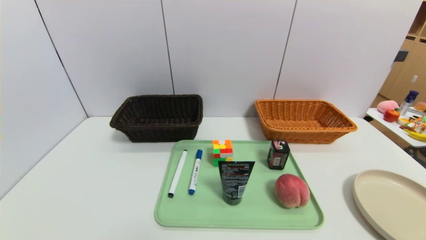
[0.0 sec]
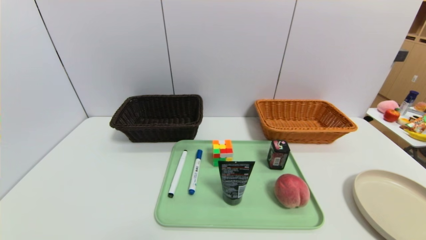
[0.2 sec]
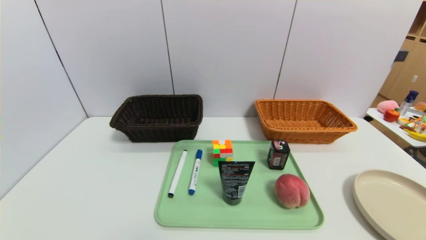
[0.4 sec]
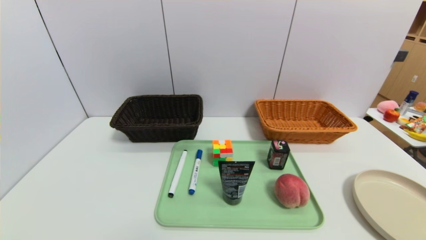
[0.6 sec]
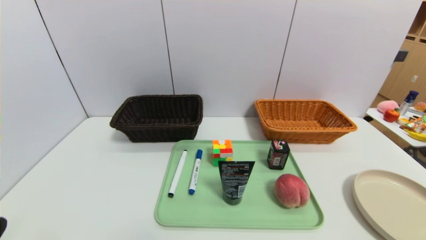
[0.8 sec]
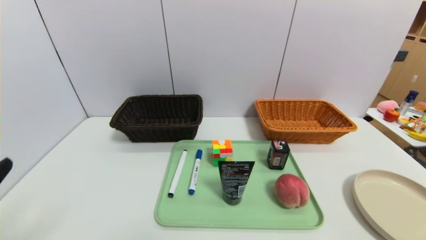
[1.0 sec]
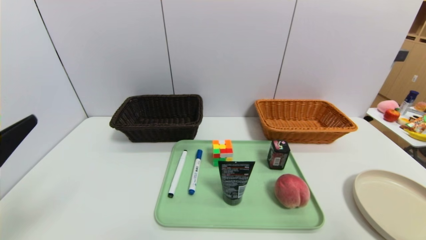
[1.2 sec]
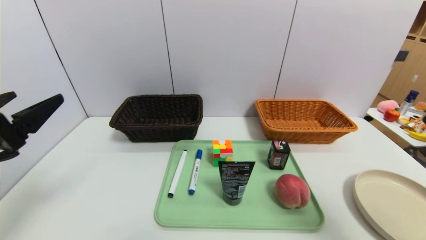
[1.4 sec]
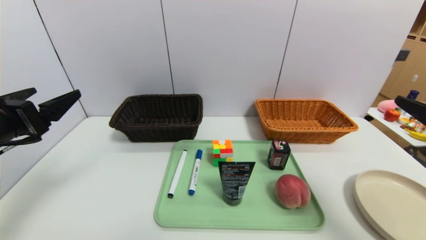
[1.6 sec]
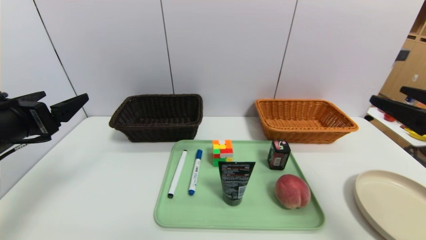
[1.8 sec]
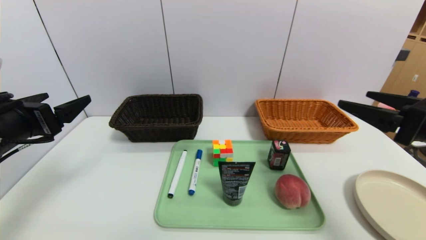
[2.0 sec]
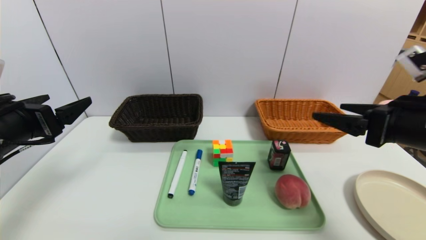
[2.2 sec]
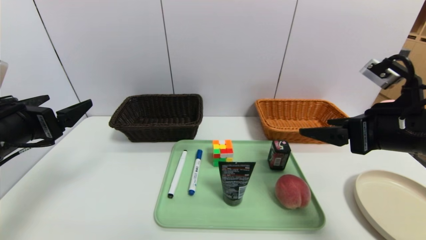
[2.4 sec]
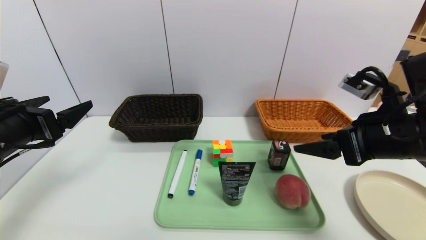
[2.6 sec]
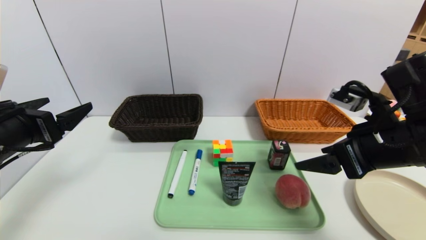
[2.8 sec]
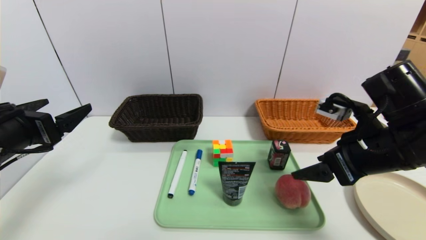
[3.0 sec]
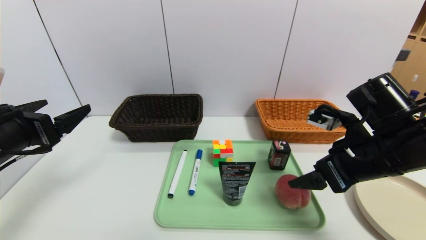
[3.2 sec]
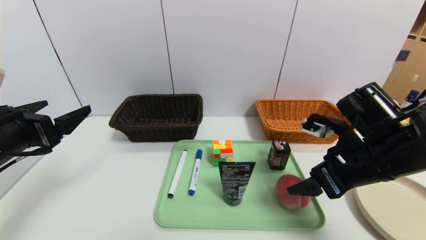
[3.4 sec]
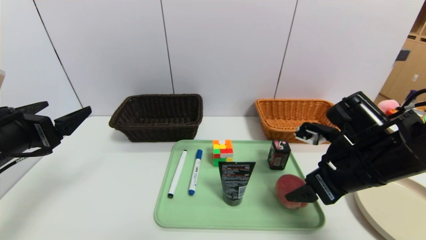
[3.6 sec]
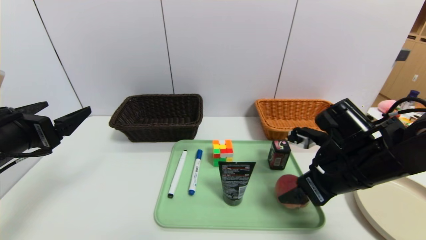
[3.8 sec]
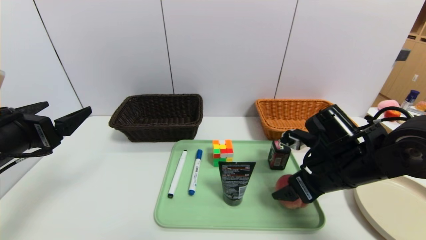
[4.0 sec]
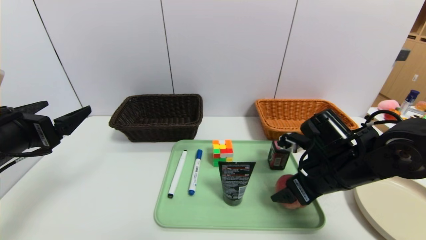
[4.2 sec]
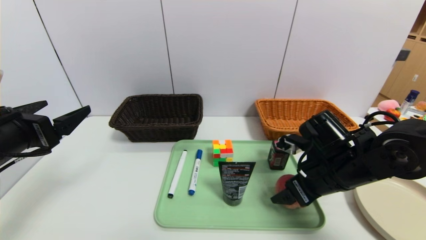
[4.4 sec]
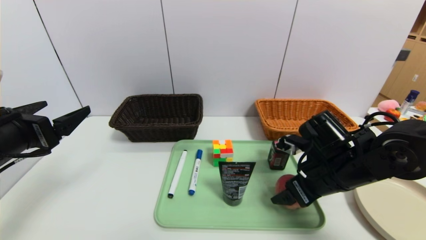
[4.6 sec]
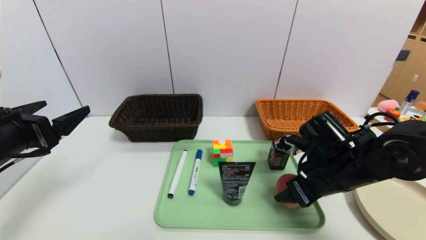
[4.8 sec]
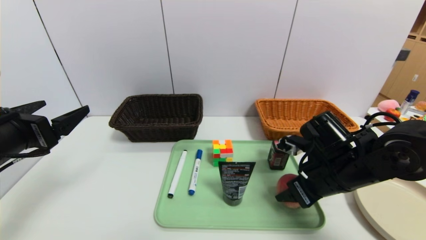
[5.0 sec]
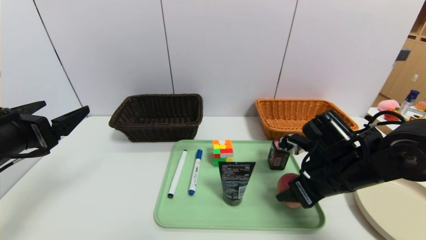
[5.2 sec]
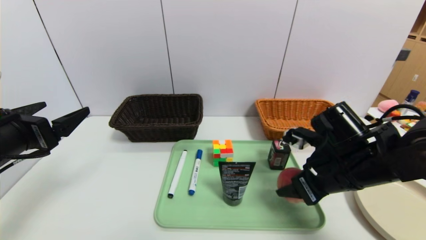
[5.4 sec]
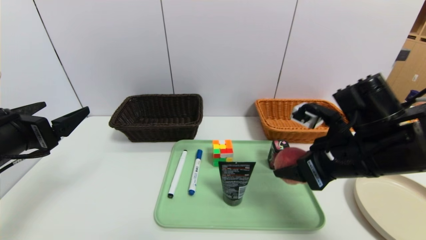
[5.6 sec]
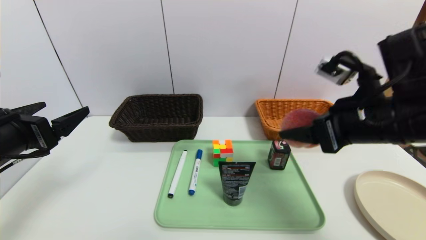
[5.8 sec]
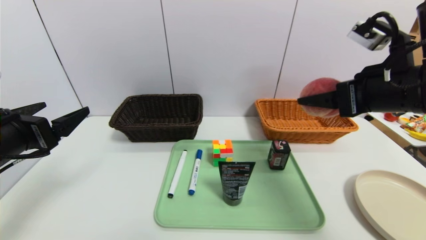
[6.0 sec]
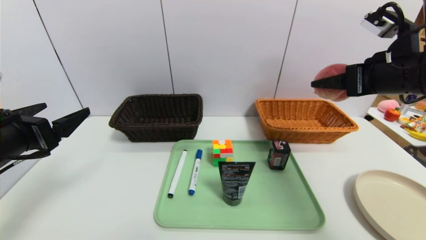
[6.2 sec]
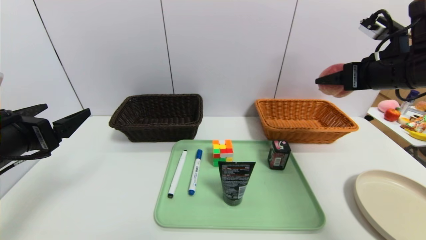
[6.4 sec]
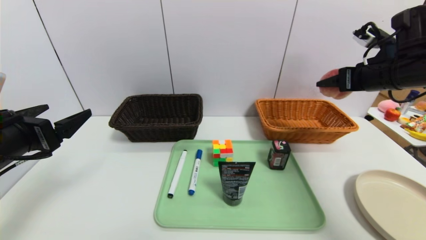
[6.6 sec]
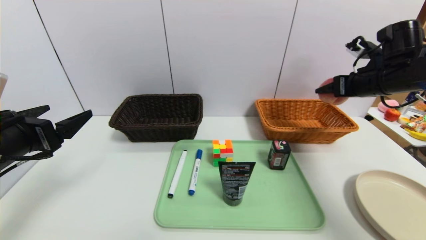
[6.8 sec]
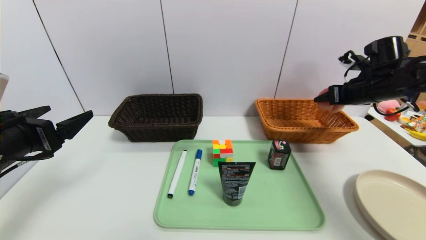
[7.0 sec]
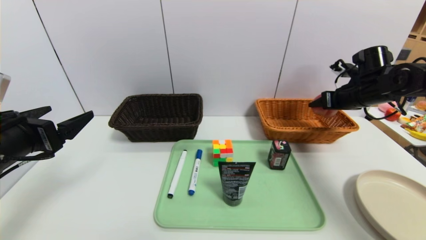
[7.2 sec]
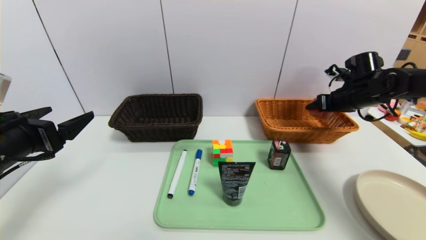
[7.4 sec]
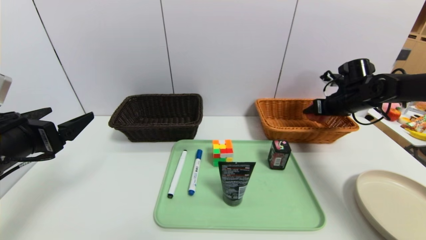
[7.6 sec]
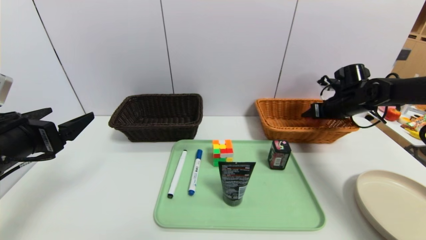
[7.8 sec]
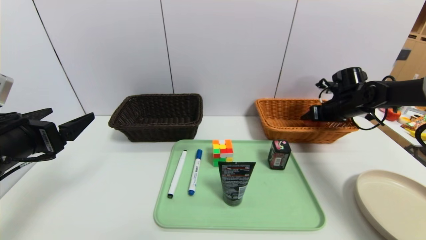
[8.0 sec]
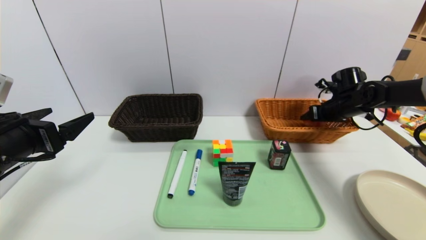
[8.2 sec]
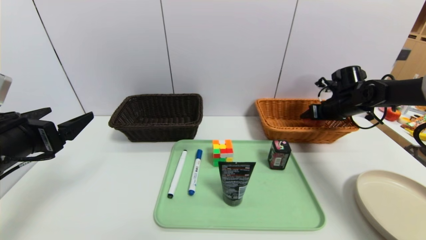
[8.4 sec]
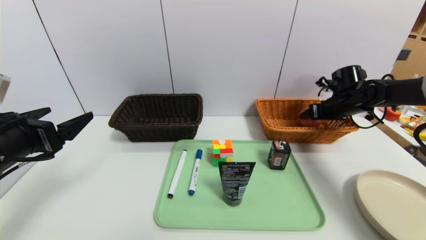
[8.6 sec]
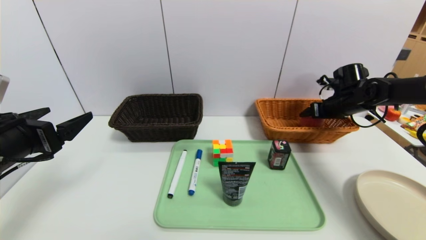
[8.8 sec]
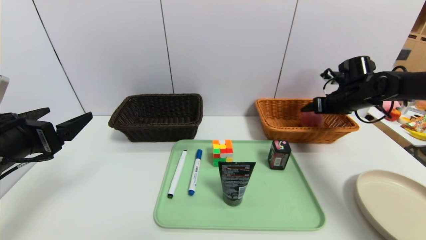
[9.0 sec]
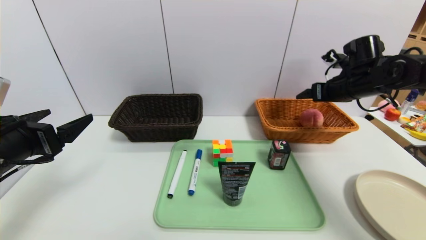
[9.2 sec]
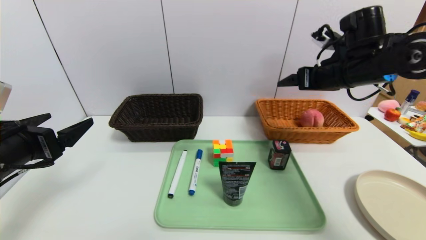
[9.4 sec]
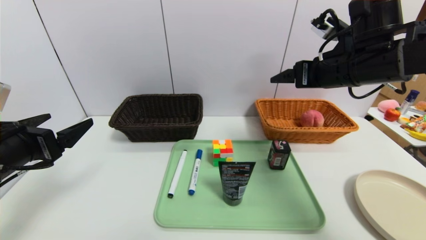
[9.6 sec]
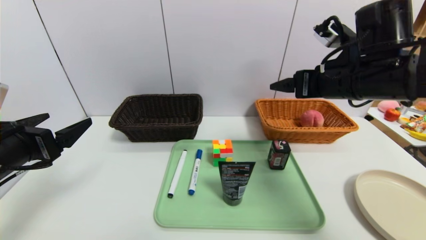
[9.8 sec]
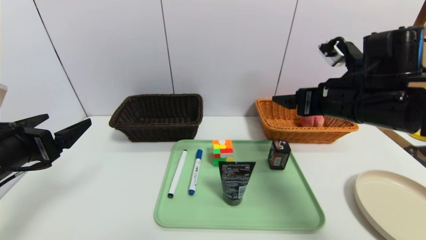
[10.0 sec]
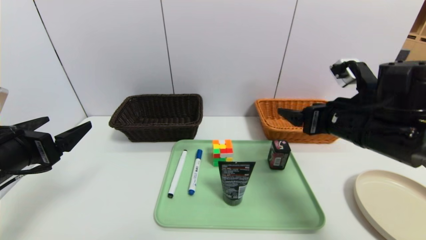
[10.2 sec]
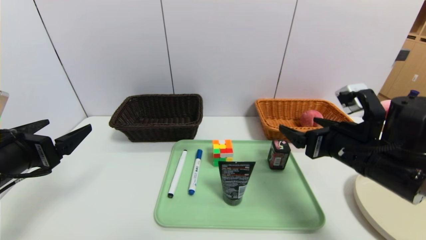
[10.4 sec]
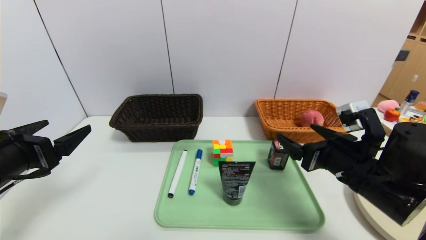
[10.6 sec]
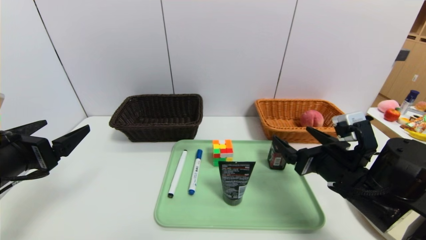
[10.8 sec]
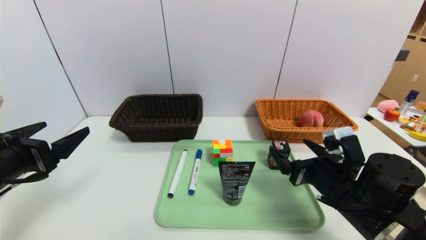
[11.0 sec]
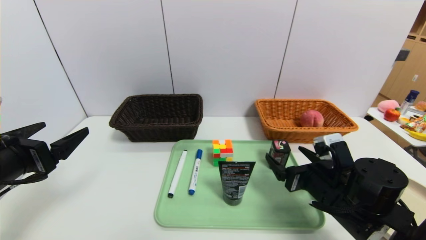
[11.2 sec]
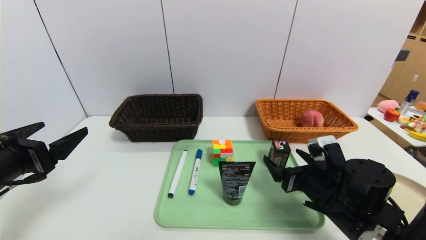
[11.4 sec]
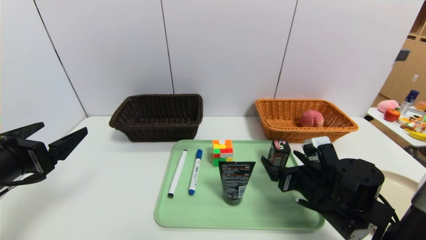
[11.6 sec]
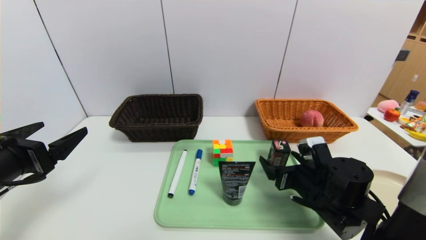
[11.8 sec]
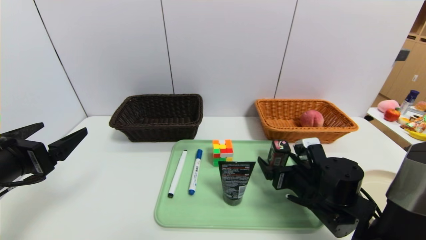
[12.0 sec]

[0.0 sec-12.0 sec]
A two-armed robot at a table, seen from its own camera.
Task of the whole recording: place the food in the right basket with the right gripper, and place the non food items in the left basket with the left gripper.
Step, 0.0 sec to 8.8 sec: Grasp the peach and put it in the right basket.
0.0 sec to 1.6 sec: The left gripper travels forward and upward by approximately 25 cm, while the right gripper is displaced upward and forward by about 25 cm.
1.6 sec to 3.0 sec: The right gripper travels to the left and forward by some 10 cm.
3.0 sec to 4.4 sec: The right gripper shifts about 10 cm downward.
4.4 sec to 6.0 sec: The right gripper goes about 15 cm upward, and closes up.
6.0 sec to 7.6 sec: The right gripper goes approximately 25 cm forward, downward and to the right.
7.6 sec to 9.0 sec: The grippers make only small movements.
9.0 sec to 10.4 sec: The right gripper goes roughly 25 cm backward and to the left.
10.4 sec to 12.0 sec: The right gripper travels downward by some 10 cm.

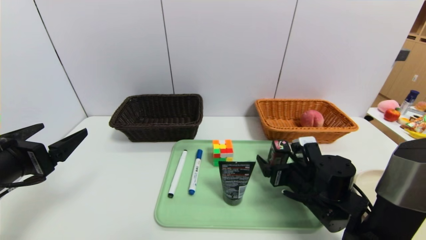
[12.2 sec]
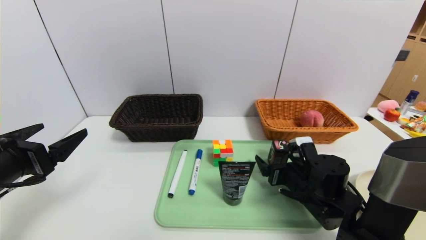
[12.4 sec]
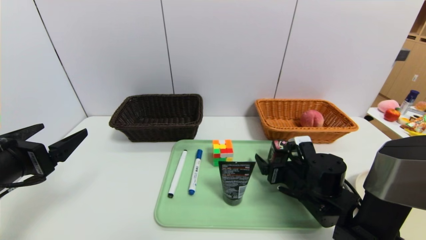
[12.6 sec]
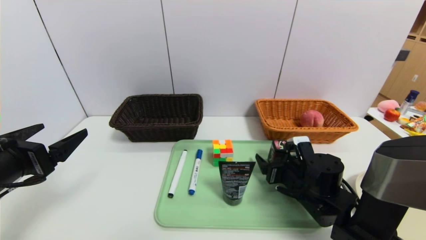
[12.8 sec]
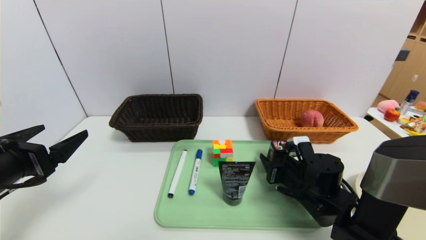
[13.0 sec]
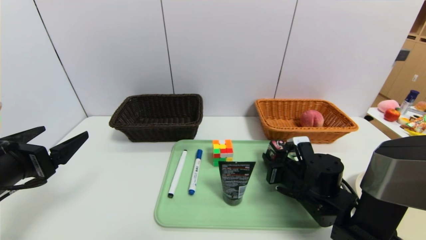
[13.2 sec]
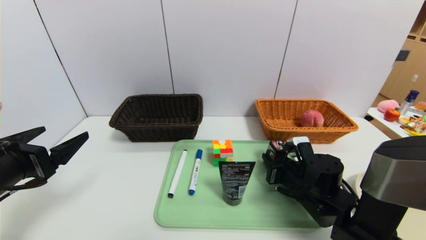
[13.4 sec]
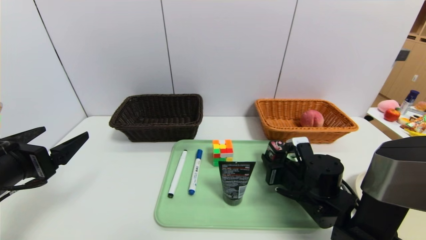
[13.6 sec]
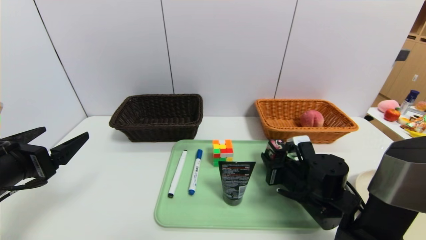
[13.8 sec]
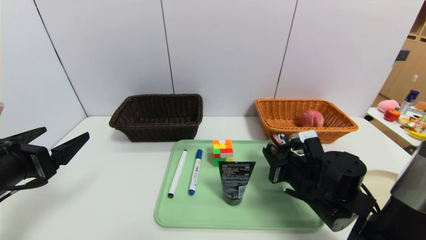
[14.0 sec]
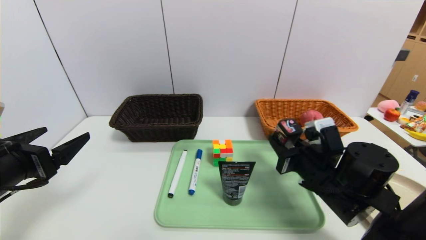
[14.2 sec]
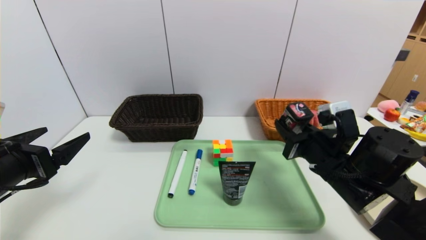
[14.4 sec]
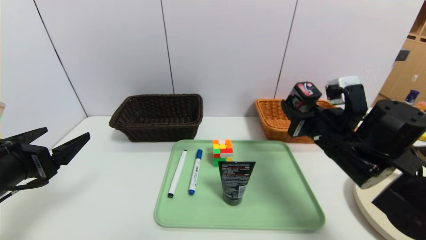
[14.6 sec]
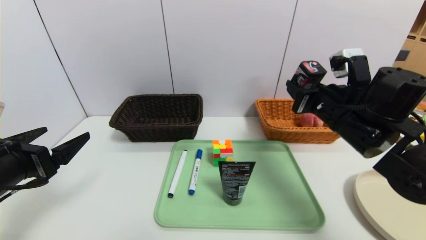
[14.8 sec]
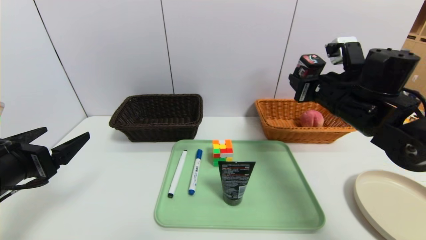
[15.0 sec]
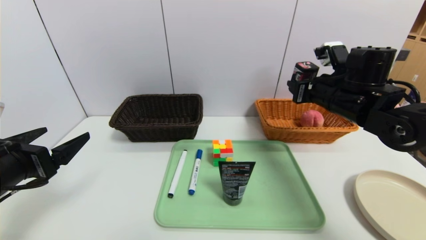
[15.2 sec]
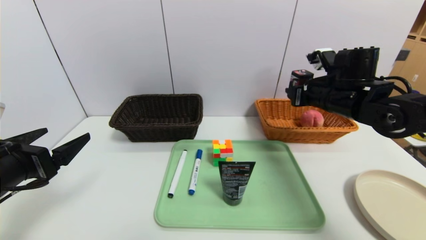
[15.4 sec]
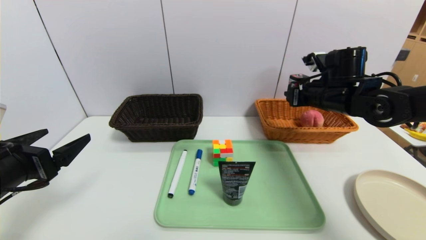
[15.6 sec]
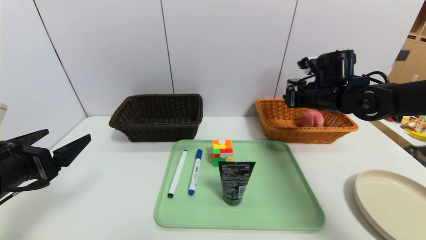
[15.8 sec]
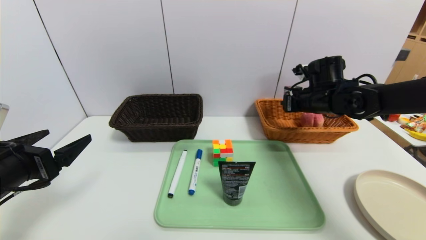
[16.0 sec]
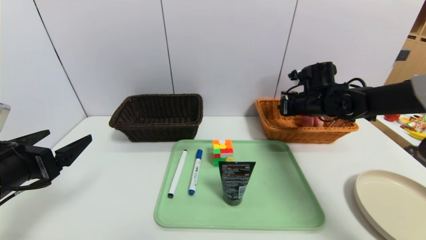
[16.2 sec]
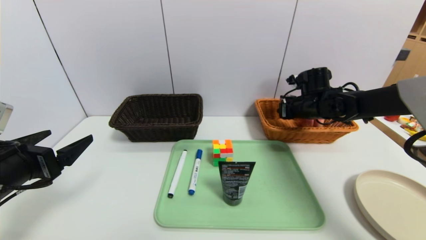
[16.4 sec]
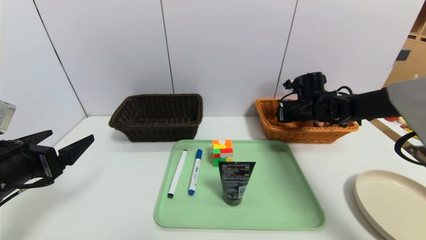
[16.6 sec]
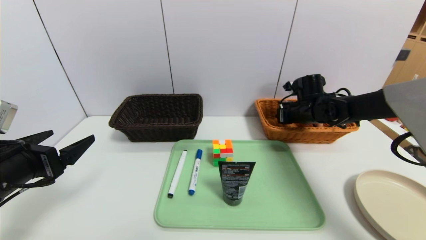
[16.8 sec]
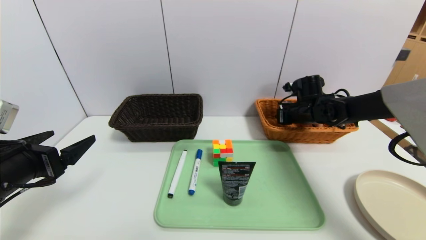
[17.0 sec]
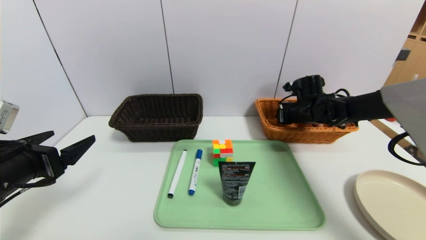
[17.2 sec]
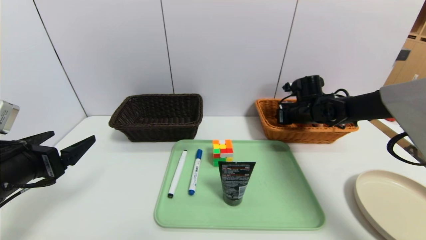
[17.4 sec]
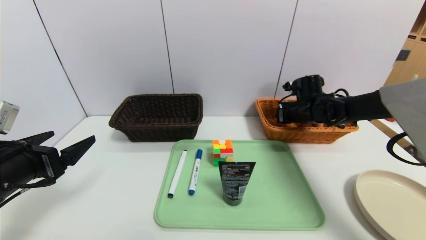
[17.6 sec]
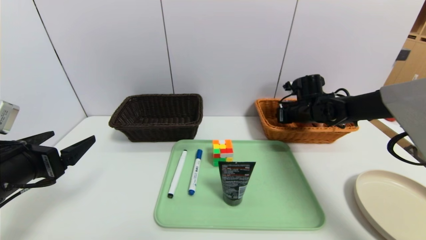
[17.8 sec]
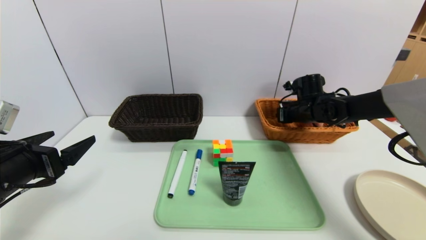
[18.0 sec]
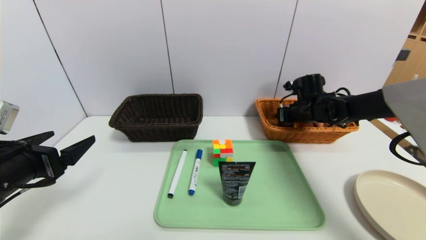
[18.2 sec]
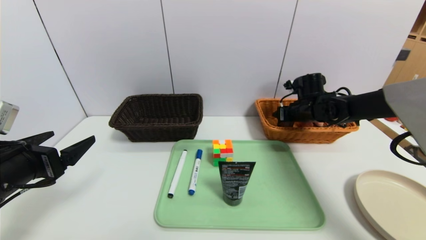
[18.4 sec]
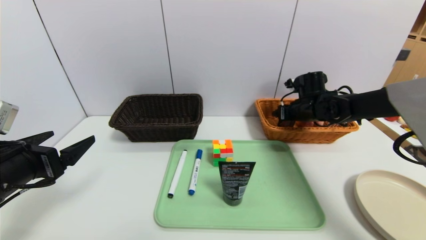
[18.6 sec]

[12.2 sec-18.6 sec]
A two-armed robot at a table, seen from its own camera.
Task of the whole recording: place the food in the right basket with the right gripper, and place the non food items in the left basket with the left gripper.
Step, 12.2 sec to 18.4 sec: Grasp the square chewing gum and put it in the right basket.
12.2 sec to 13.8 sec: The right gripper closes its fingers.
13.8 sec to 15.4 sec: The right gripper shifts roughly 20 cm upward and forward.
15.4 sec to 17.0 sec: The right gripper moves forward and downward, some 15 cm.
17.0 sec to 18.6 sec: The right gripper opens.
